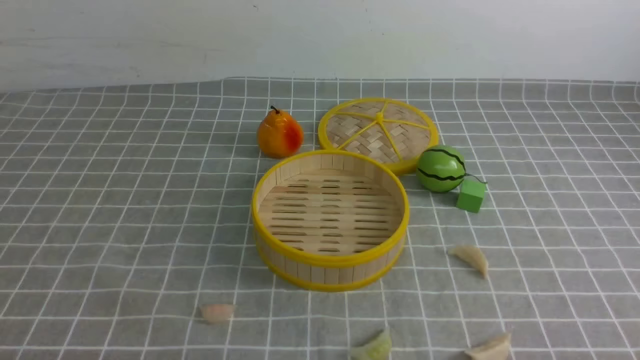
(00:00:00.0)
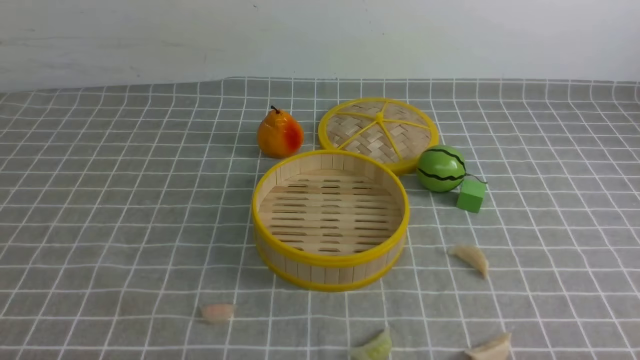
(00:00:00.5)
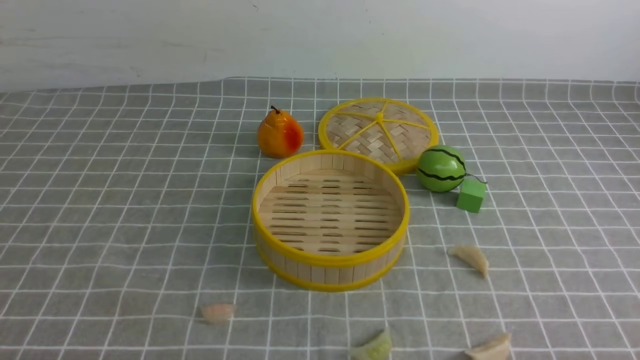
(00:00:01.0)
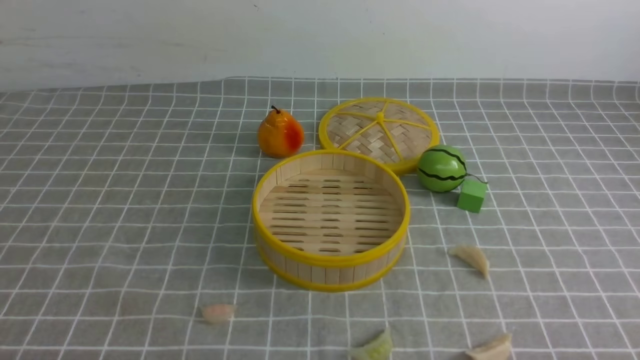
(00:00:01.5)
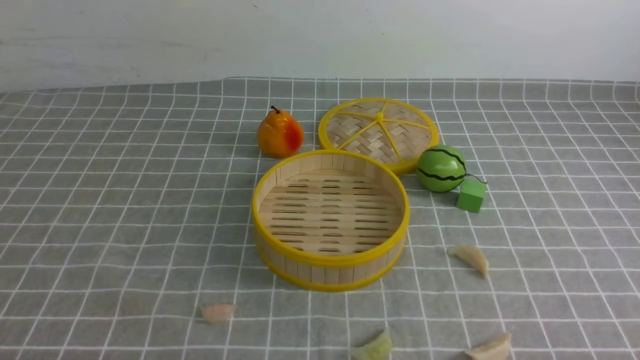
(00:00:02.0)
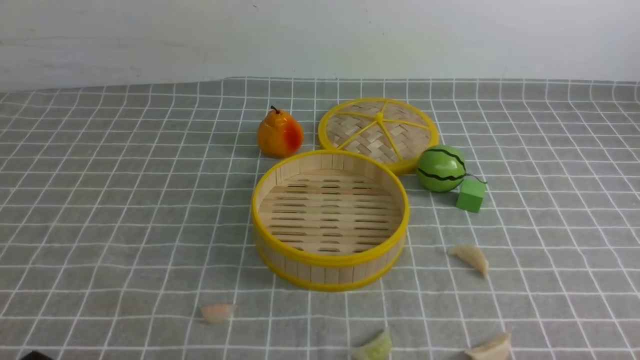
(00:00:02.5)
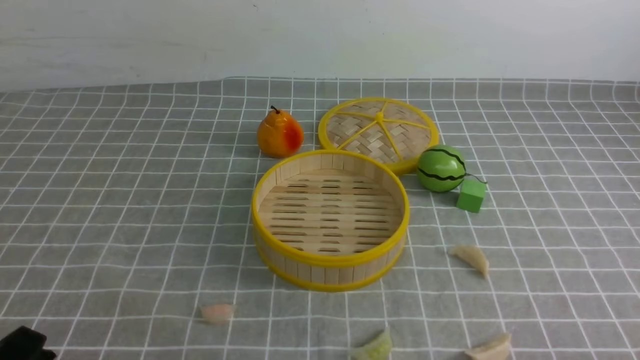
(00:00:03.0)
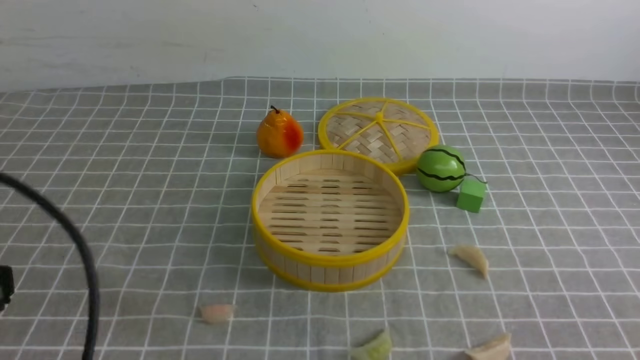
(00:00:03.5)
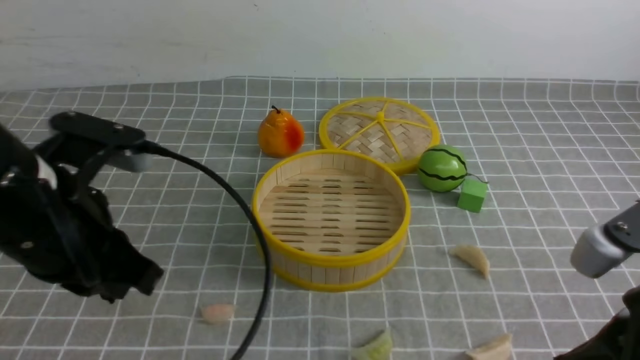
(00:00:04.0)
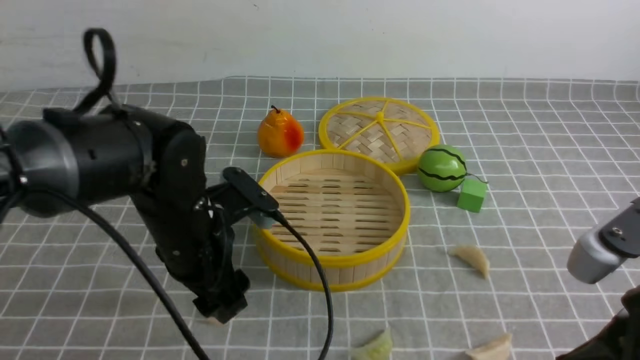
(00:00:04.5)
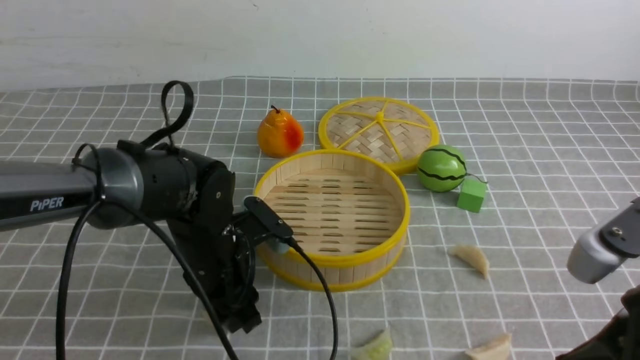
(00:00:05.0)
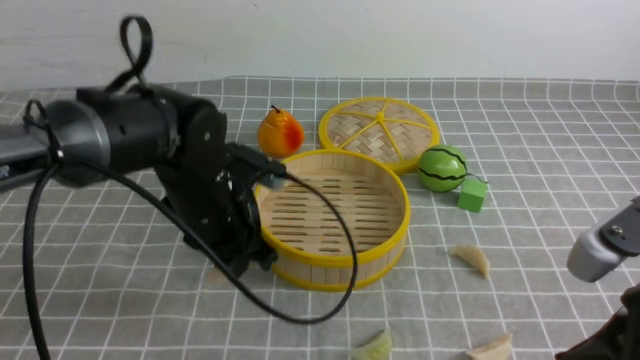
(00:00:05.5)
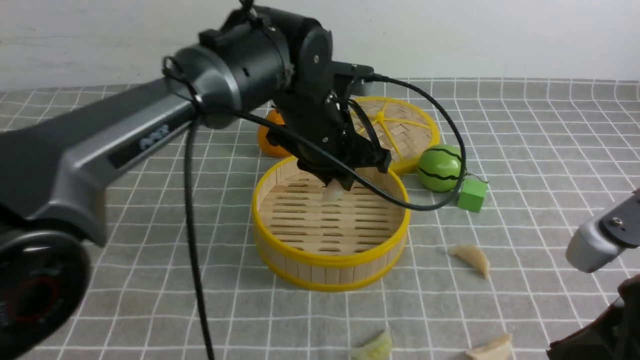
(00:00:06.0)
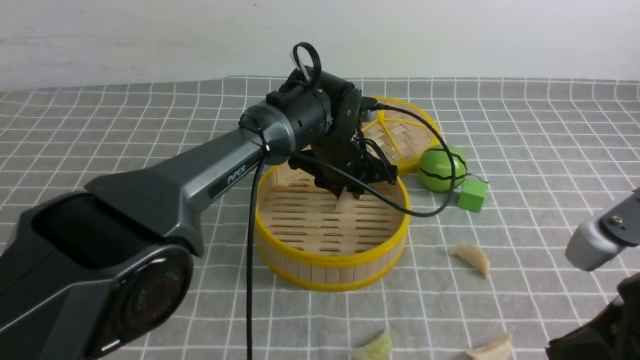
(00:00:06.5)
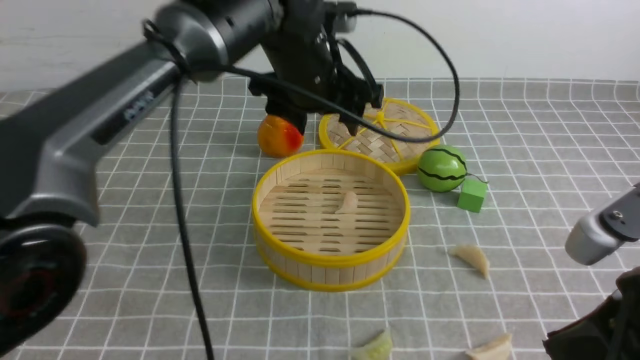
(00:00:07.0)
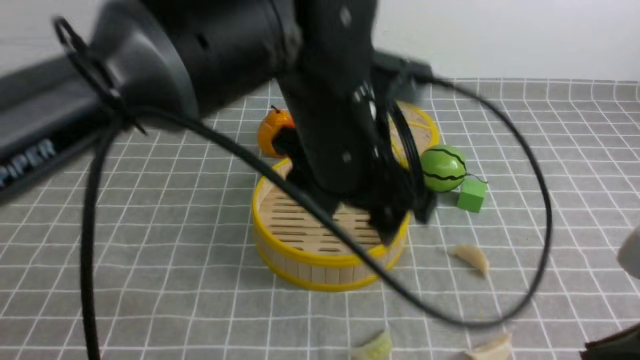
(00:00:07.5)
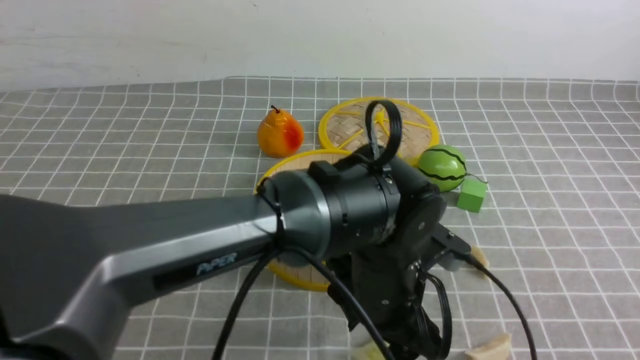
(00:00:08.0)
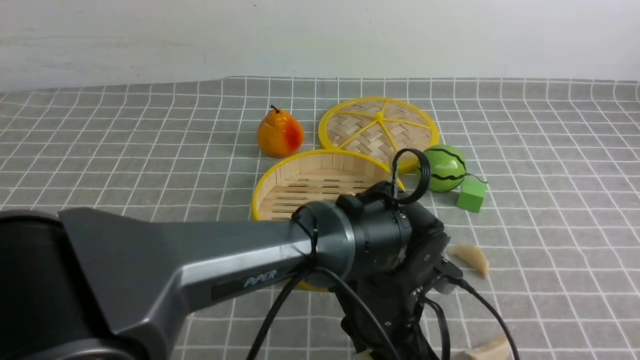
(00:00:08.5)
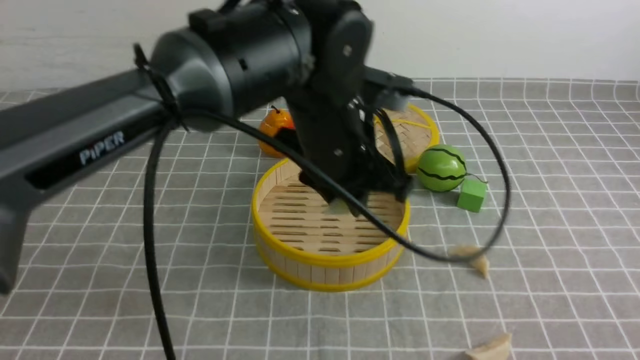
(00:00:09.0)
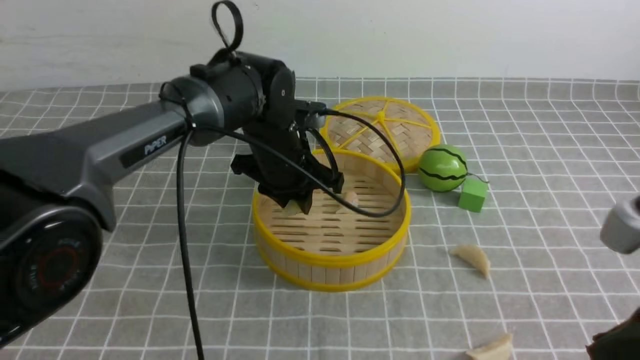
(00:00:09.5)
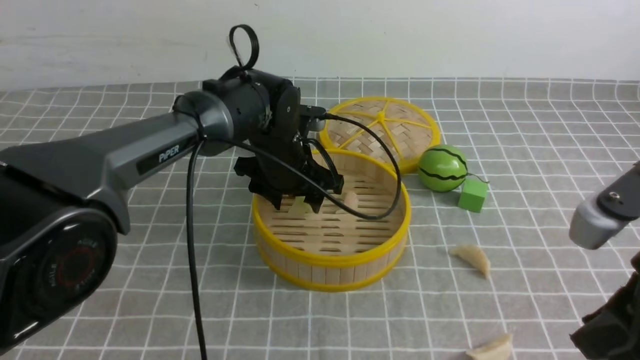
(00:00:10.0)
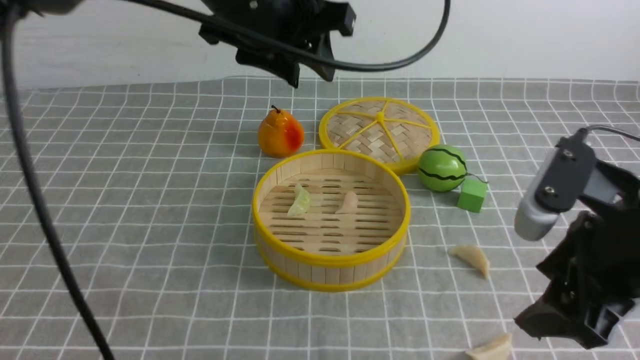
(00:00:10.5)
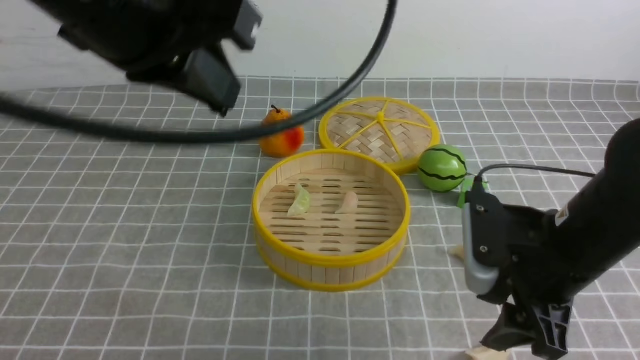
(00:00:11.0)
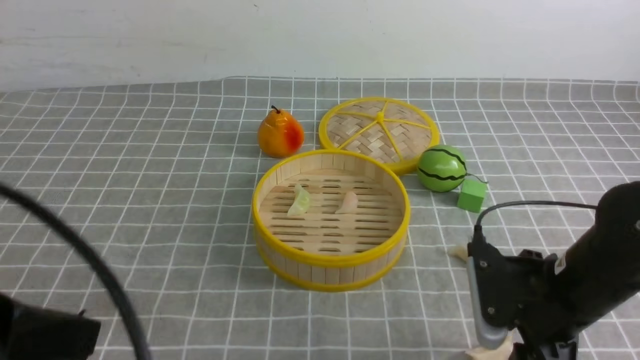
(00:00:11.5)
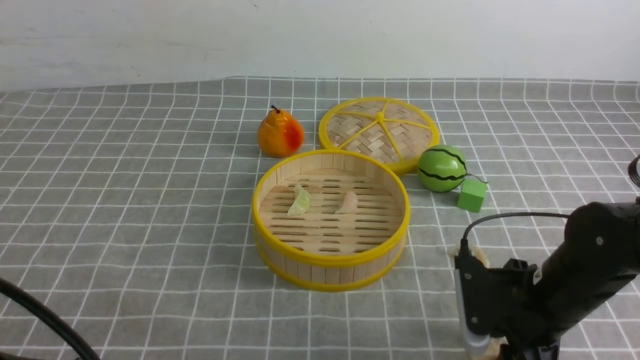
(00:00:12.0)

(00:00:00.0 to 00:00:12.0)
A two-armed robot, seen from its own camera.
Task of the whole recording: put the dumplings into the steamer on the table with the grey tablecloth.
Step, 00:00:00.0 - 00:00:05.0: use the left arm to grab a dumpling.
Step, 00:00:05.5 - 00:00:06.5: use the left arm to put the dumpling into the steamer.
Step, 00:00:07.0 - 00:00:08.5: use the left arm to grab a dumpling.
Step, 00:00:09.0 - 00:00:10.0: use the left arm to put the dumpling into the steamer.
00:00:02.0 - 00:00:04.0: The right gripper goes approximately 15 cm upward, forward and to the left, and closes. Meanwhile the left gripper heads upward, forward and to the right, covering approximately 25 cm.
00:00:04.0 - 00:00:06.0: The left gripper shifts about 25 cm forward and to the right, and opens and closes again.
00:00:06.0 - 00:00:08.0: The left gripper travels backward, to the right and downward by about 15 cm, and opens up; the right gripper moves backward, approximately 5 cm.
00:00:08.0 - 00:00:10.0: The left gripper goes approximately 20 cm forward and to the left, and closes and opens again; the right gripper moves forward, about 10 cm.
00:00:10.0 - 00:00:12.0: The right gripper shifts approximately 20 cm downward and forward, and opens its fingers. The left gripper moves backward and to the left, some 40 cm, and closes up.

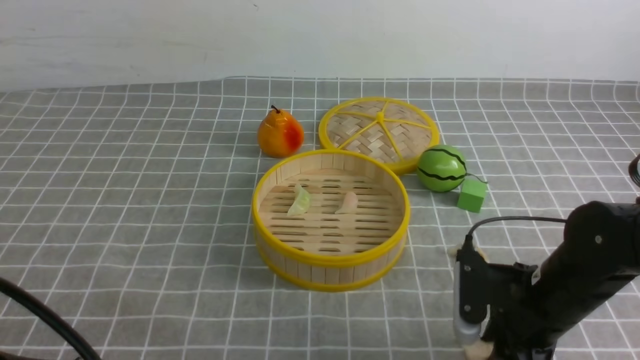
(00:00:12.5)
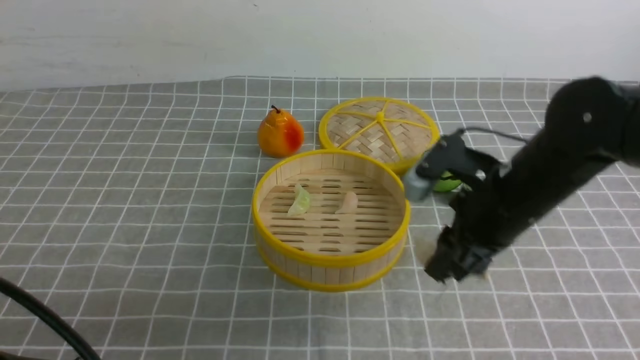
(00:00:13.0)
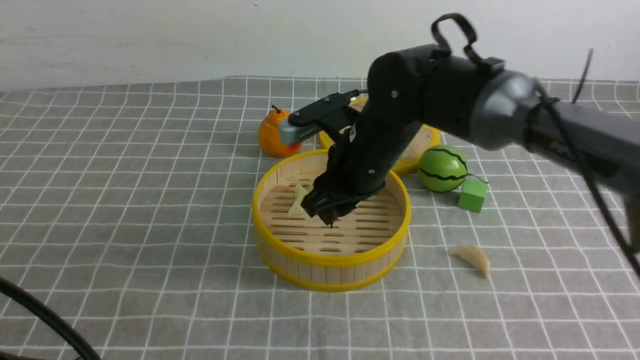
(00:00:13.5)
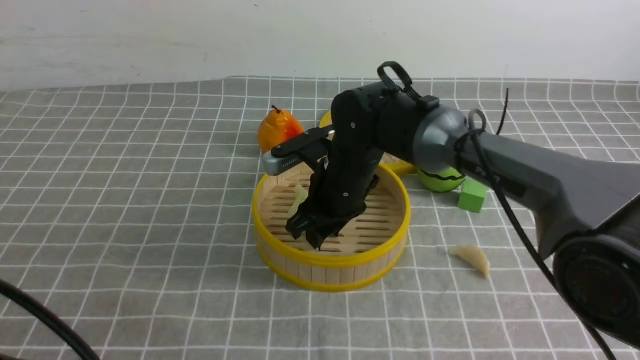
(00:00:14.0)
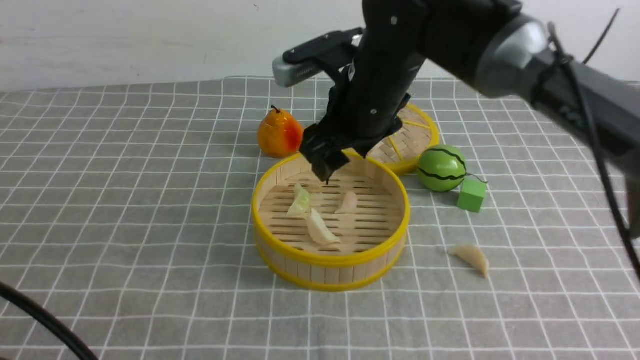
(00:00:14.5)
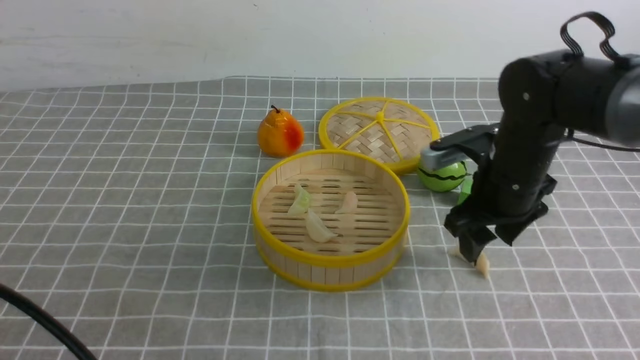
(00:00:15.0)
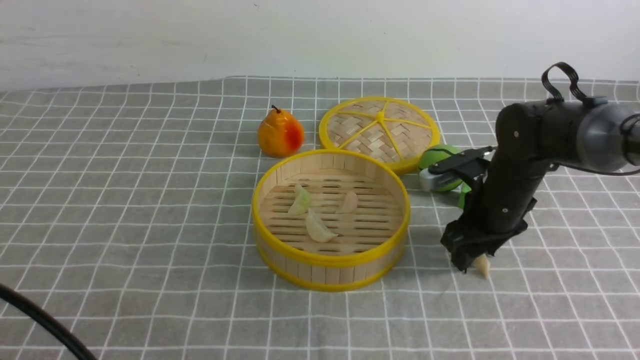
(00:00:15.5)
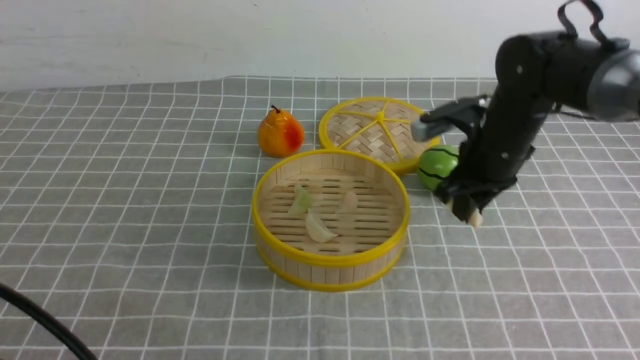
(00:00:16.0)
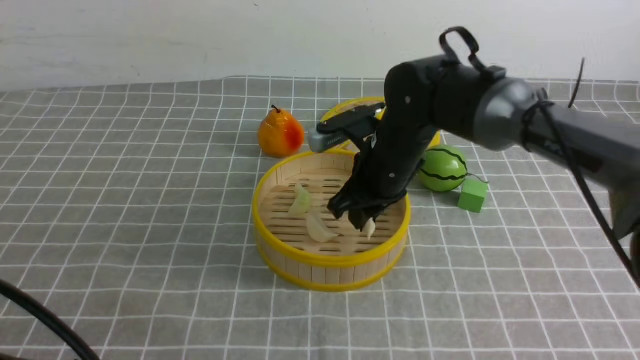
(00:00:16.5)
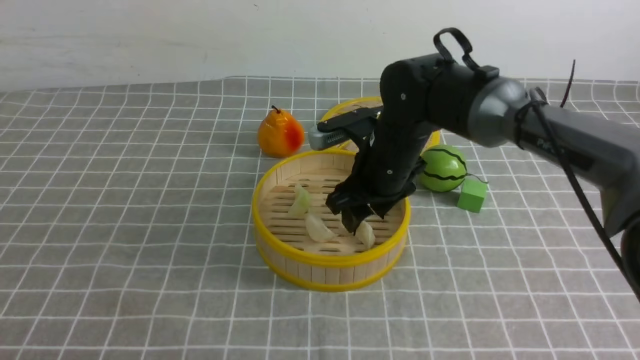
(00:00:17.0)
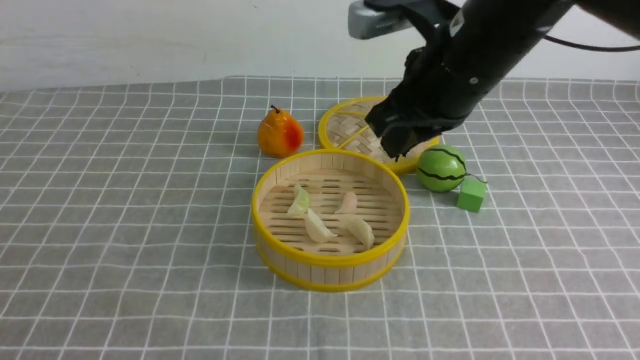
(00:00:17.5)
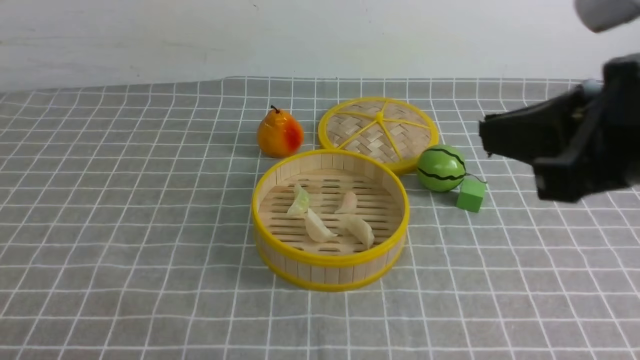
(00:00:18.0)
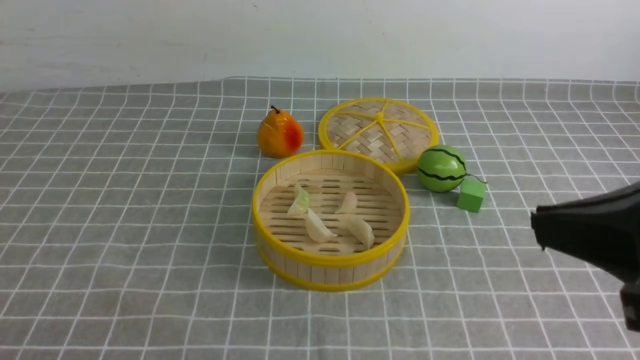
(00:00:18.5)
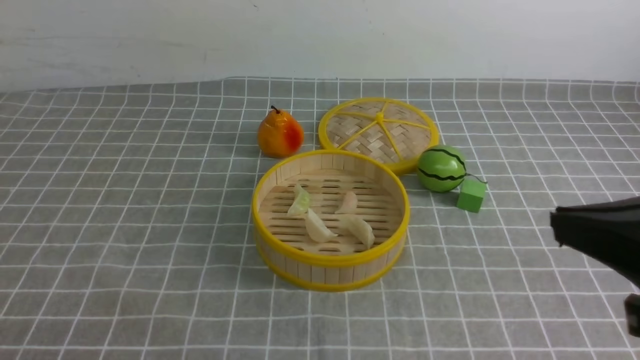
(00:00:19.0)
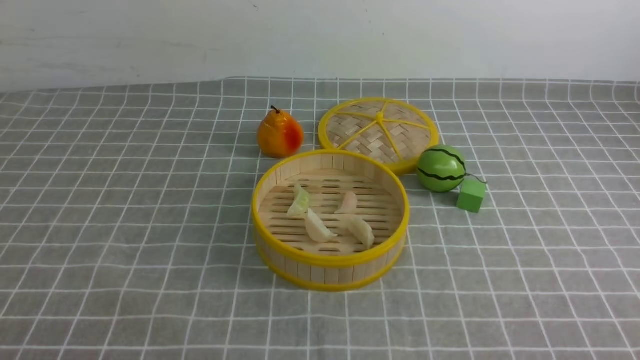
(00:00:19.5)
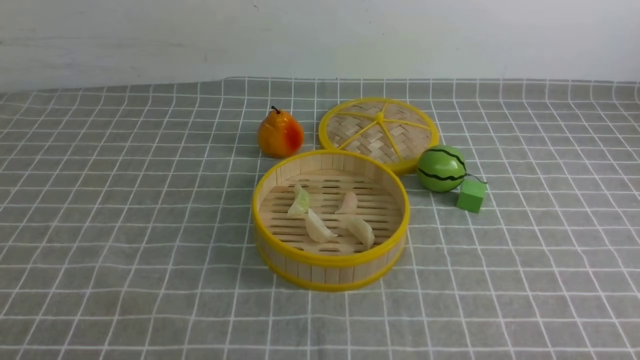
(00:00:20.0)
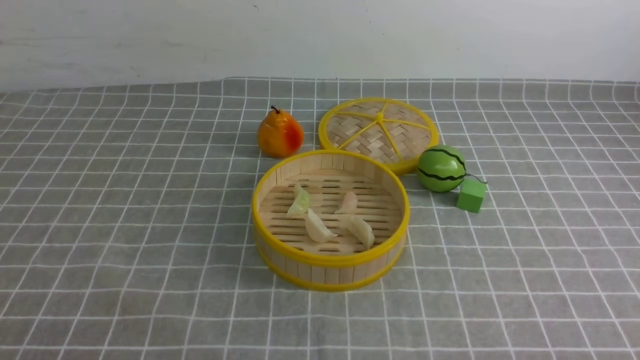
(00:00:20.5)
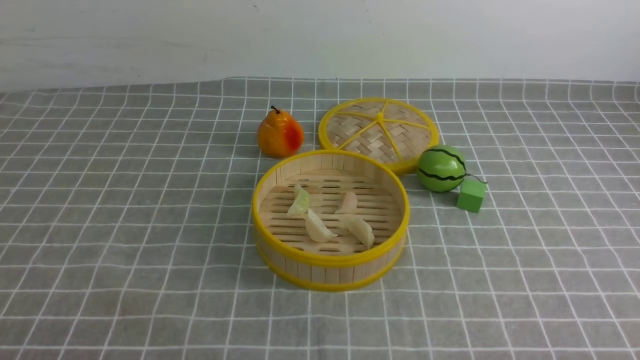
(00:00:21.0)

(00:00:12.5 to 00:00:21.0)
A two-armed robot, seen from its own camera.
Task of the whole recording: put the dumplings into the steamer on the table with the grey tablecloth.
Step, 00:00:13.0 - 00:00:14.0: use the right arm to put the dumpling into the steamer.
Step, 00:00:14.5 - 00:00:15.5: use the right arm to grab a dumpling.
Step, 00:00:16.0 - 00:00:17.5: use the right arm to put the dumpling into the steamer.
00:00:12.5 - 00:00:14.5: The right gripper travels to the left, forward and upward by roughly 25 cm, and opens up.
00:00:14.5 - 00:00:16.5: The right gripper goes to the right and returns, roughly 15 cm each way, and closes.
00:00:16.5 - 00:00:19.0: The left gripper is displaced backward by approximately 5 cm, while the right gripper shifts approximately 35 cm backward, to the right and upward, and closes.
00:00:19.0 - 00:00:21.0: The right gripper heads downward and to the right, covering roughly 20 cm.
